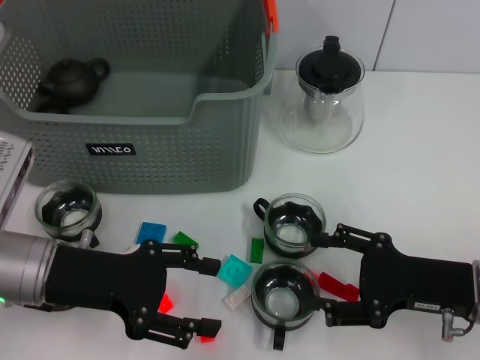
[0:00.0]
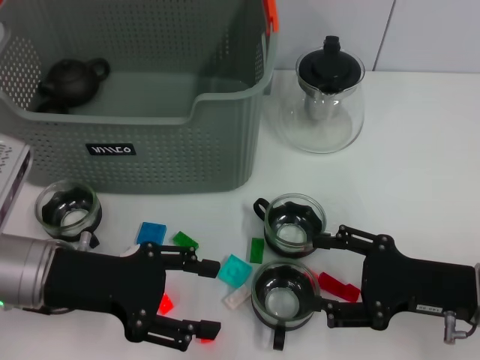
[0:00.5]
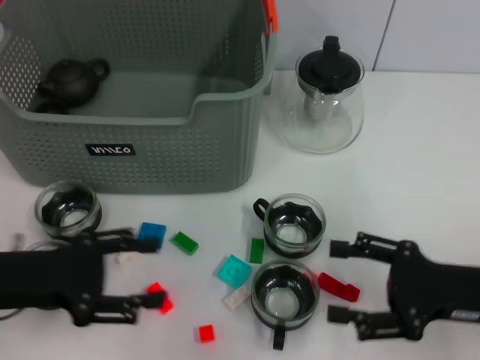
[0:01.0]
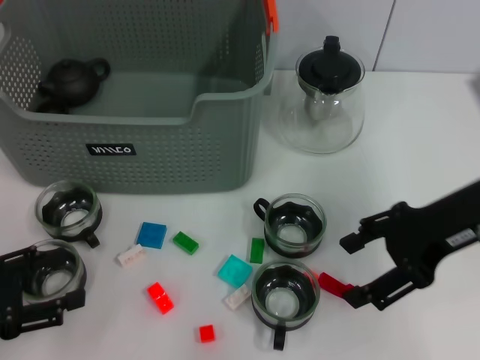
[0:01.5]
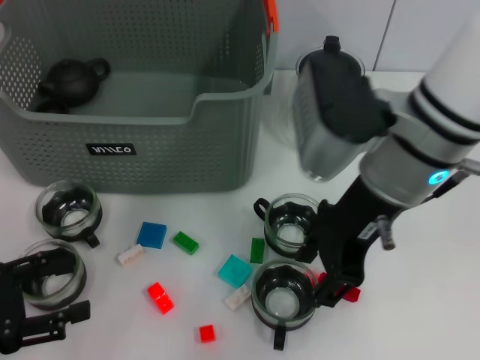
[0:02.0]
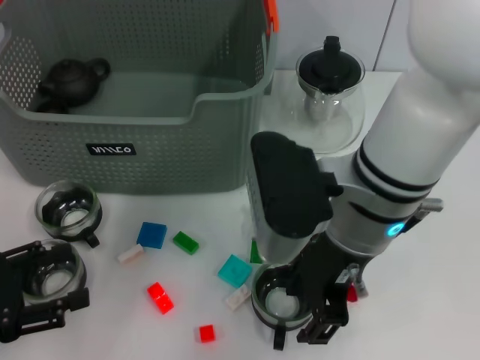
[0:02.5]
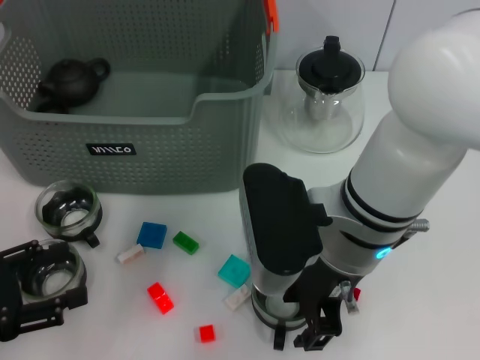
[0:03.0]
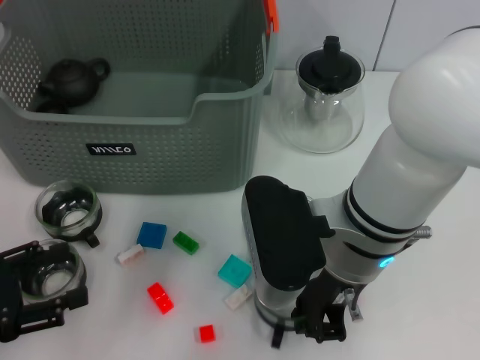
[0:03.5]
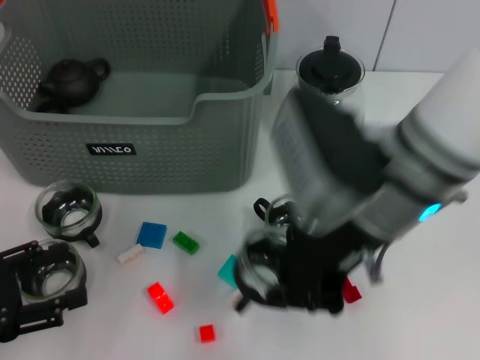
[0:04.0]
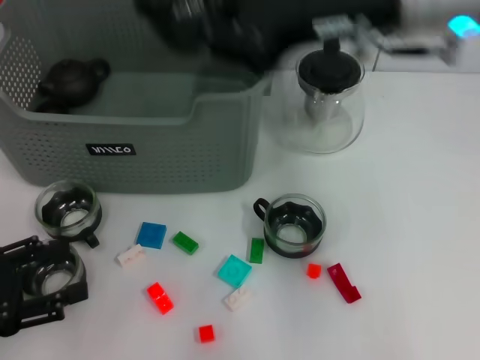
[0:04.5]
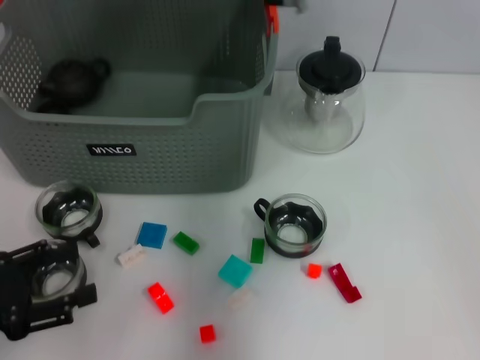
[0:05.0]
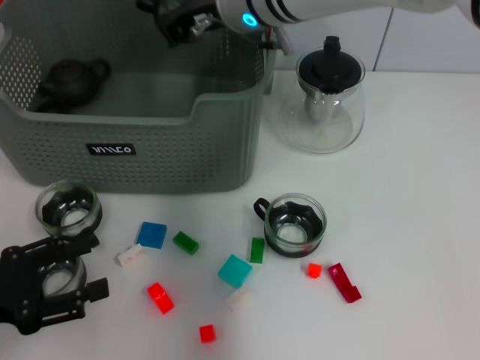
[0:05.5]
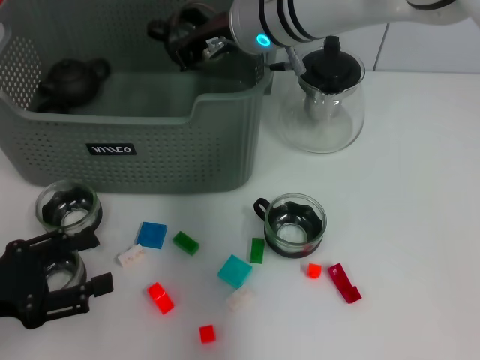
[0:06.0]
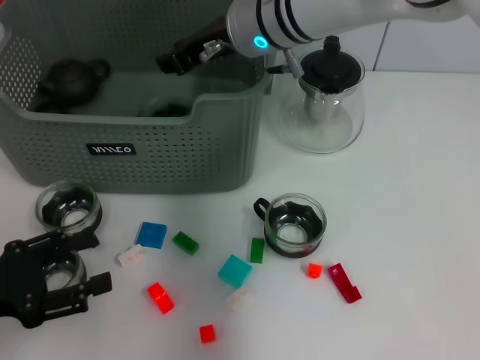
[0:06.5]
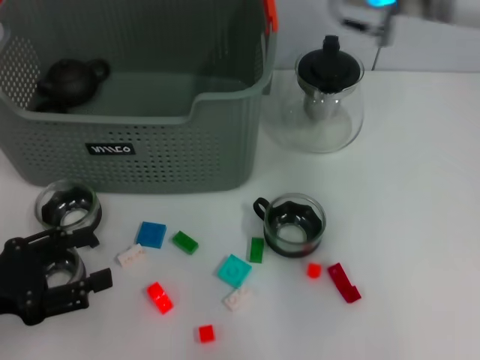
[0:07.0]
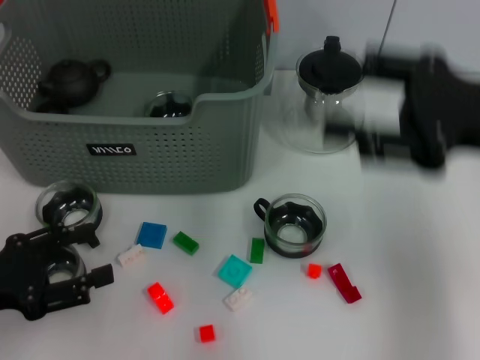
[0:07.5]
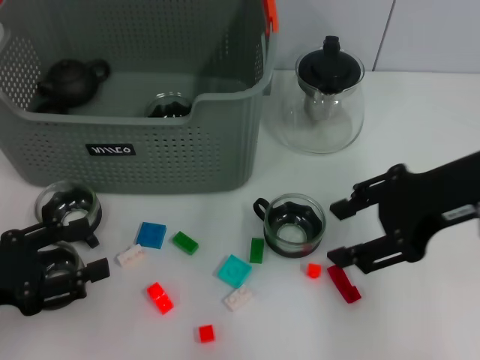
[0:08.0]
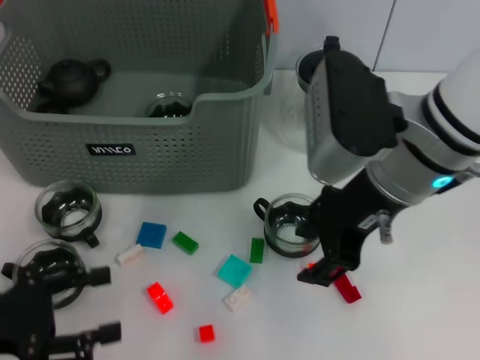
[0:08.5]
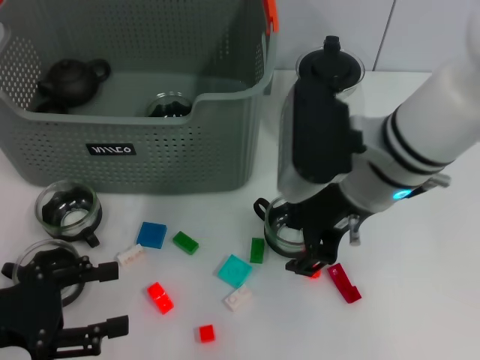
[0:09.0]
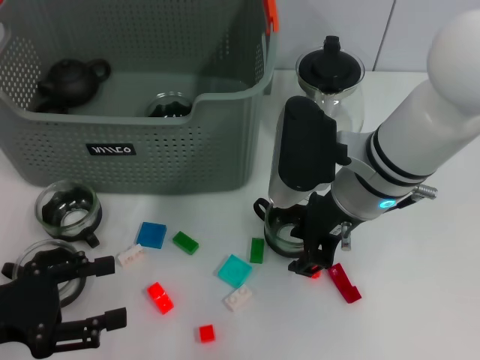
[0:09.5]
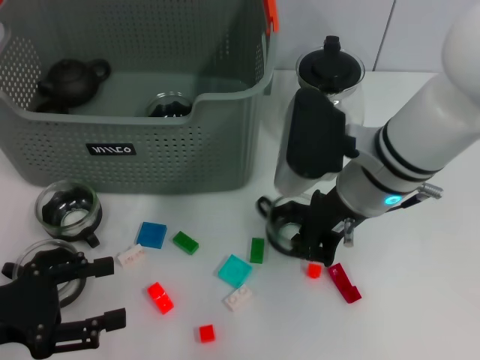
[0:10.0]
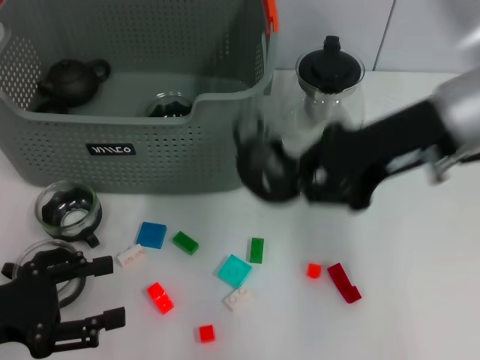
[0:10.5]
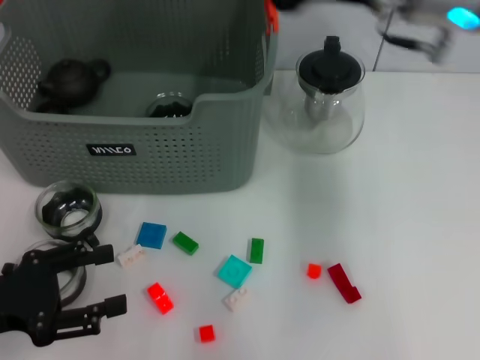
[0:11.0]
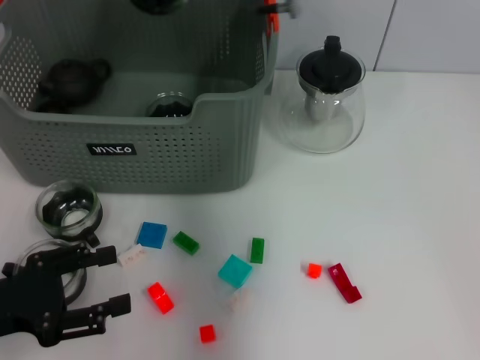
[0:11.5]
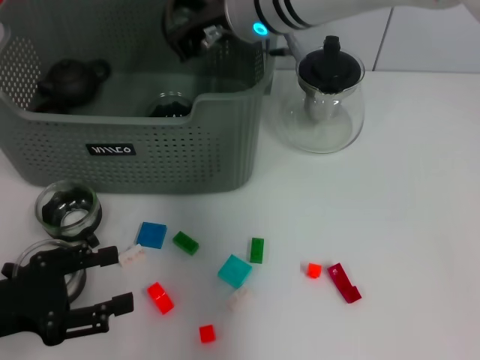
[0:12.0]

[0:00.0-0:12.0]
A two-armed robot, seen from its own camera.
Task of the whole recording: pick up the teacup on the table and place it into the storage bin, pick up the block on the table and place it into the storage bin.
Step, 0:00.0 to 0:03.5: Grasp the cup with right gripper.
Step, 0:04.0 to 0:06.5: Place the cup in the storage box with right gripper.
Step, 0:07.0 to 0:10.0: Grasp the cup with right gripper.
0:00.0 to 0:02.0: The left gripper travels to the left and backward by about 15 cm, while the right gripper goes roughly 20 cm upward, to the left and forward.
0:02.0 to 0:04.0: The right gripper closes.
0:04.0 to 0:06.0: The right gripper goes approximately 15 cm forward and to the left.
0:06.0 to 0:08.0: The right gripper shifts approximately 25 cm to the right and backward, and opens.
0:08.0 to 0:10.0: The right gripper shifts roughly 15 cm to the left and downward, and closes.
0:10.0 to 0:12.0: The right gripper is displaced forward, to the left and upward by about 15 cm, and closes up.

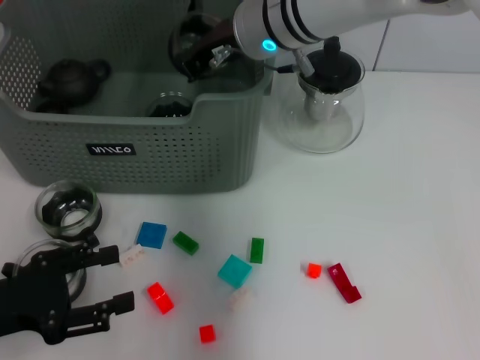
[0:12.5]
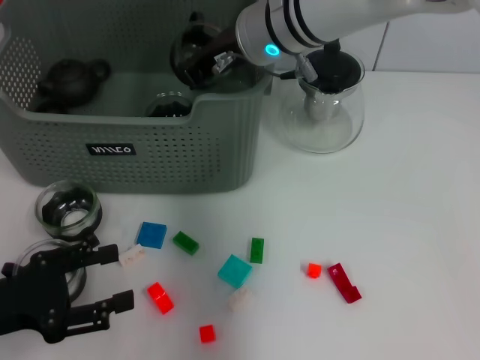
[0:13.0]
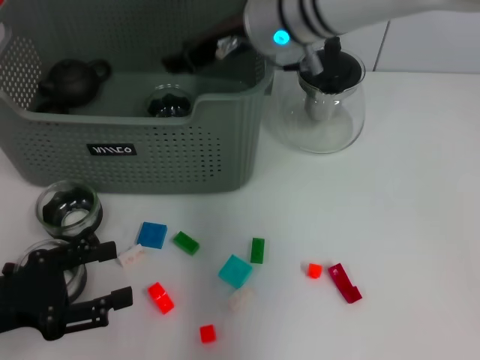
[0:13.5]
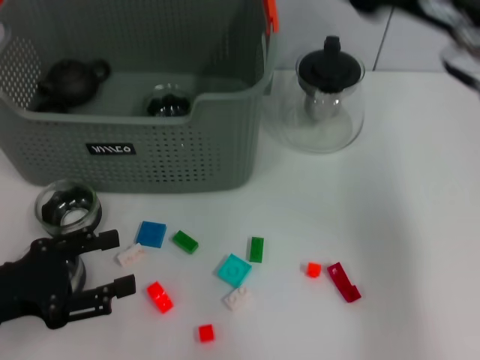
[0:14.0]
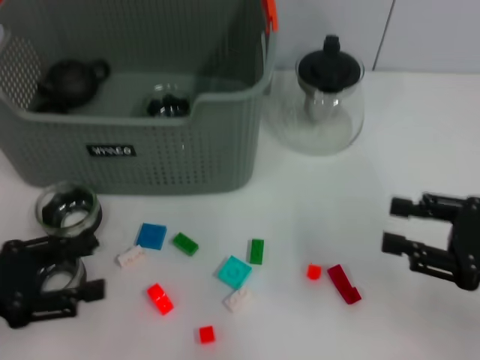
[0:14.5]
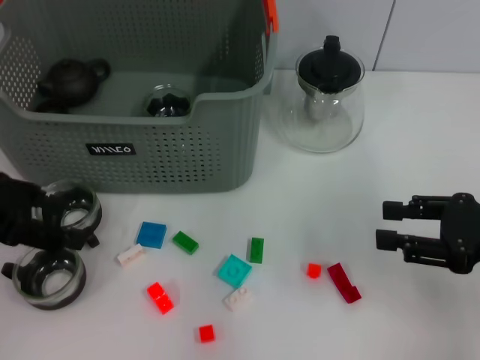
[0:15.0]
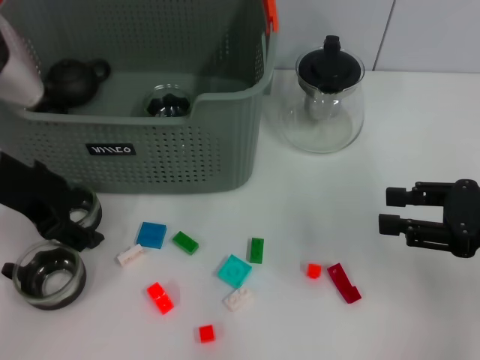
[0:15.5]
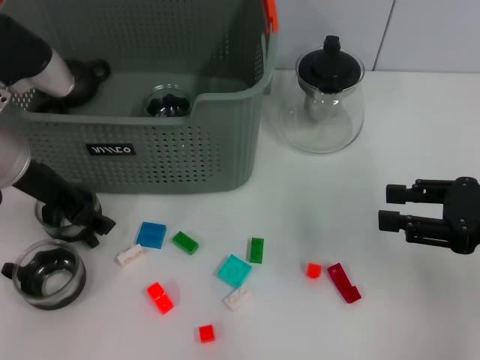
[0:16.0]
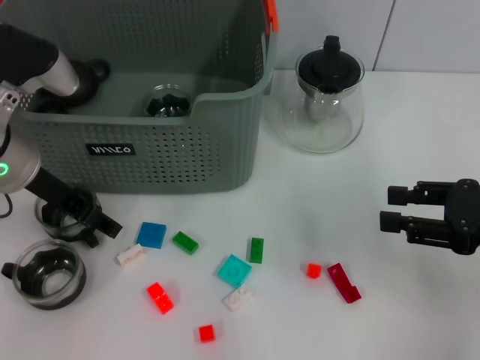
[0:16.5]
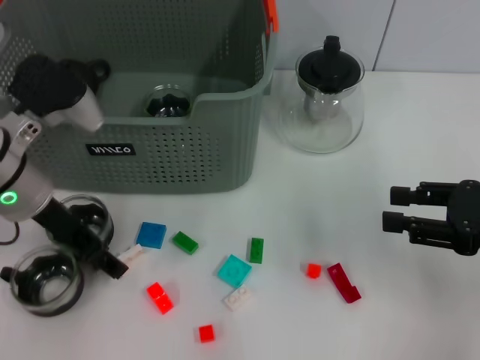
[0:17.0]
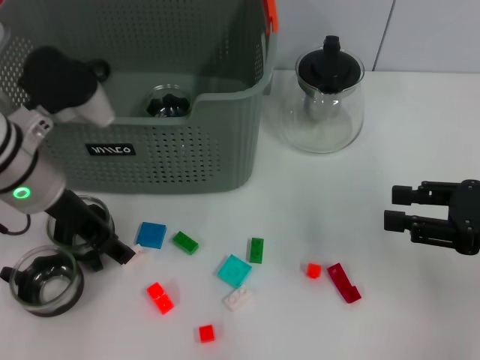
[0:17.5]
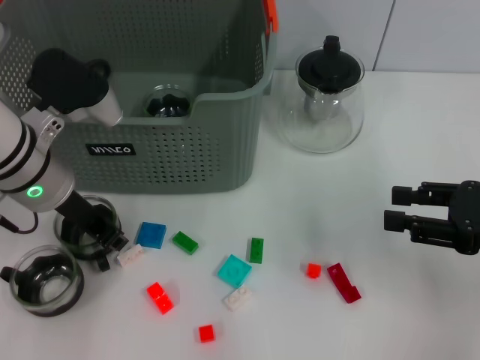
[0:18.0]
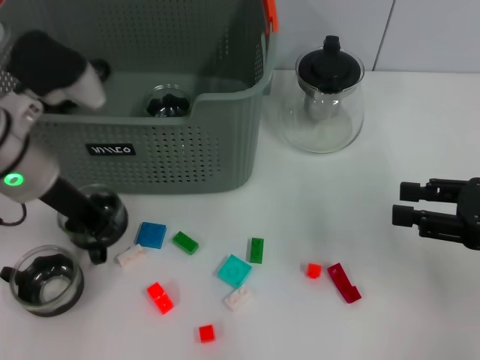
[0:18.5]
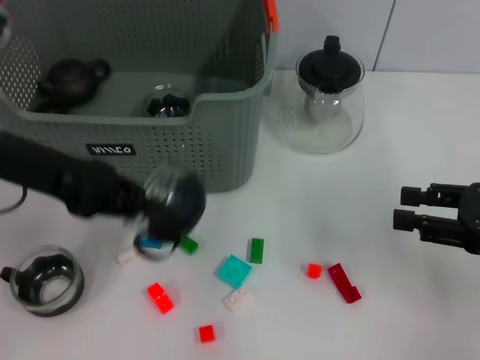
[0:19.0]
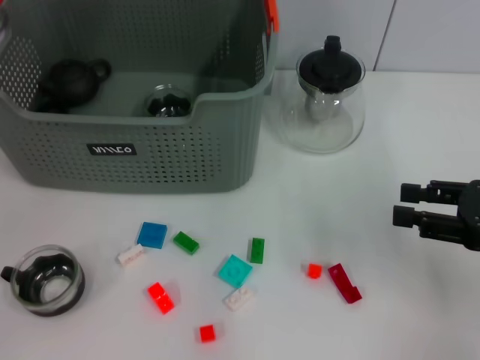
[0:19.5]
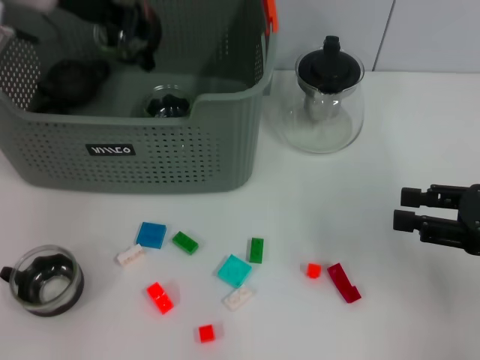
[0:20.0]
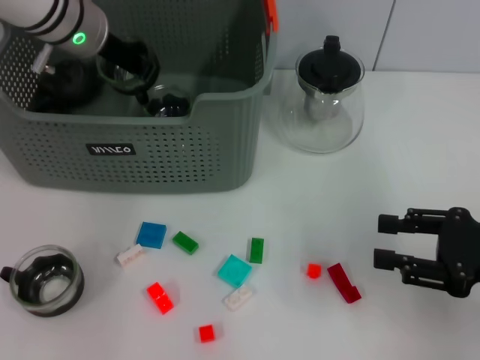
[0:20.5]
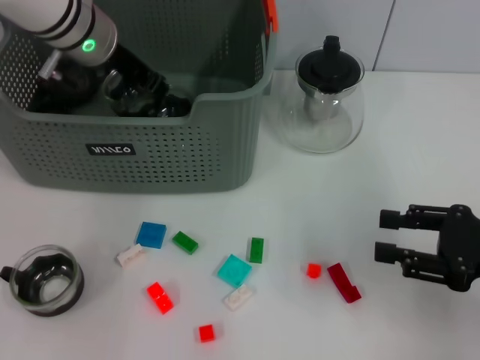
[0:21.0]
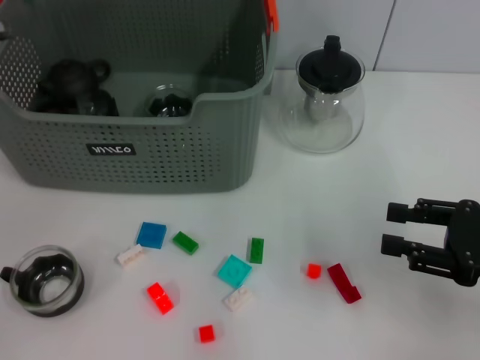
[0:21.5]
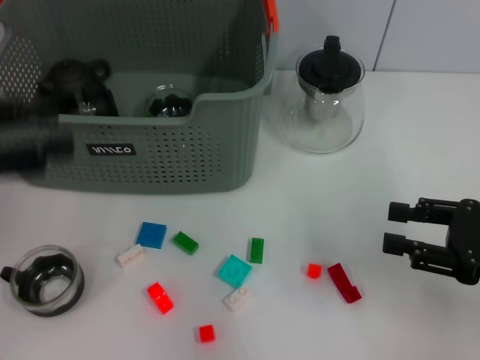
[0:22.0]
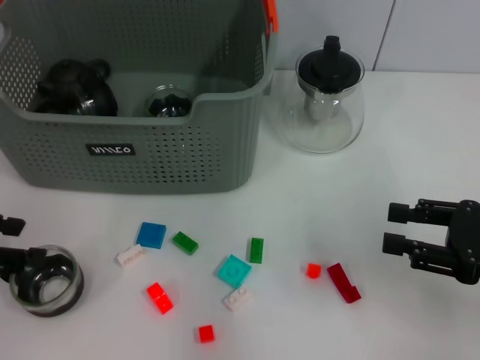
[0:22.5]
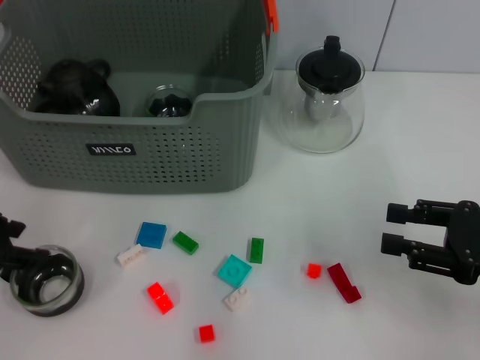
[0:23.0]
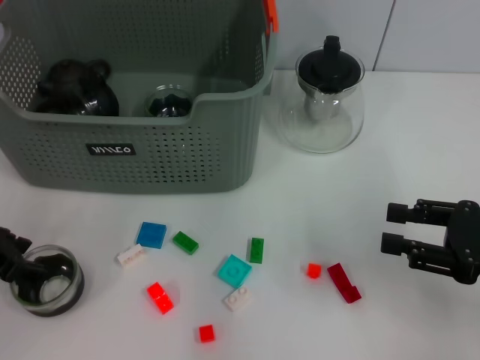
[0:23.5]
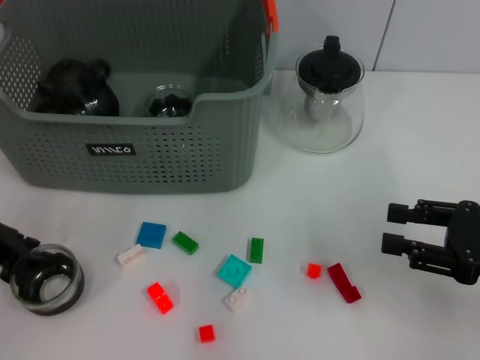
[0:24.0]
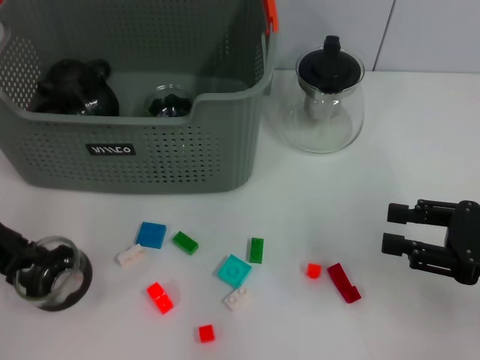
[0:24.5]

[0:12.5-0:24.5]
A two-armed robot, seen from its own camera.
Task of the whole recording: pick up the teacup on the table and place it into the storage bin, pick up the block on the table and place it into the storage bin.
Step, 0:14.0 to 0:18.0: Grasp the cup with left gripper.
Step, 0:18.5 to 0:21.5: Place the cup in the storage box with left gripper.
Step, 0:22.0 to 0:24.0: Grasp the cup with left gripper.
0:12.5 to 0:14.5: The right gripper goes roughly 35 cm to the right and backward, and opens its fingers.
0:14.5 to 0:16.5: The left gripper shifts approximately 15 cm forward and to the right.
0:16.5 to 0:18.5: The left gripper closes.
0:18.5 to 0:20.5: The left gripper is displaced forward by about 15 cm.
0:20.5 to 0:22.5: The left gripper shifts about 25 cm backward and to the left, and opens up.
0:22.5 to 0:24.5: The left gripper shifts by roughly 5 cm, and closes its fingers.

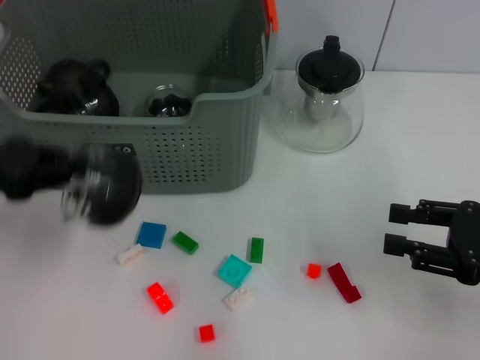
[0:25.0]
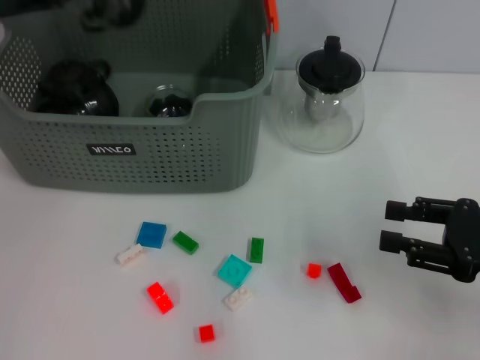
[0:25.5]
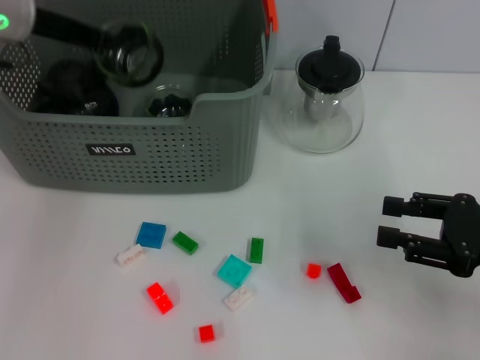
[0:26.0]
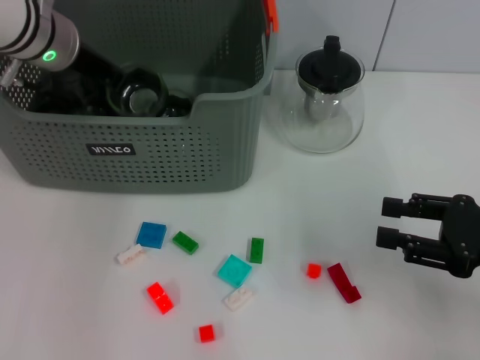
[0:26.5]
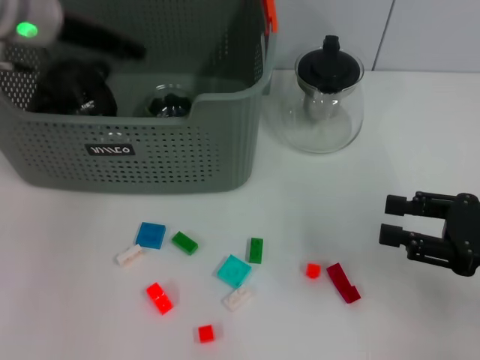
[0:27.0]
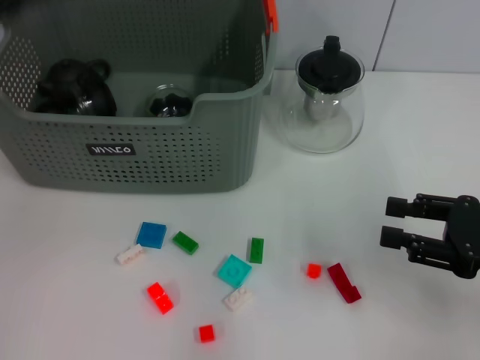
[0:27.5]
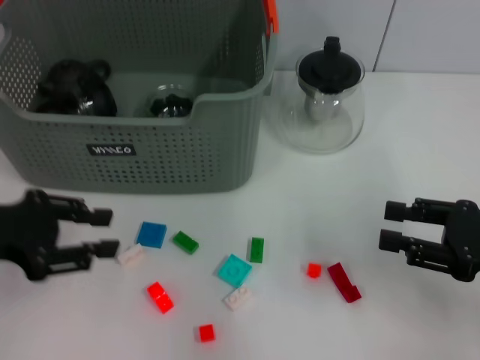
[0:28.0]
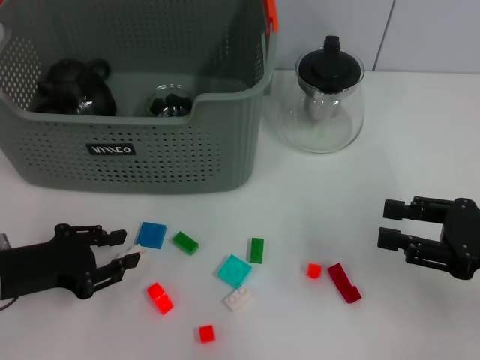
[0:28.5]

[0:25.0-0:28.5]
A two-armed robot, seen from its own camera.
Task of the whole recording: pick up the teacup on the table and place it into the storage bin, pick up the block on the table and place it into the storage bin.
Step, 0:25.0 to 0:27.0: Place the cup in the storage box with left gripper.
0:25.0 to 0:27.0: The left gripper goes roughly 20 cm forward, to the right and upward, and opens.
0:27.0 to 0:28.5: The left gripper travels backward and downward by about 25 cm.
